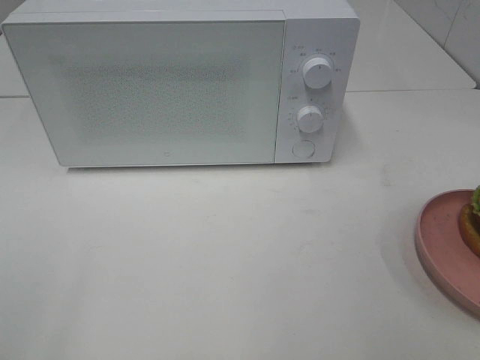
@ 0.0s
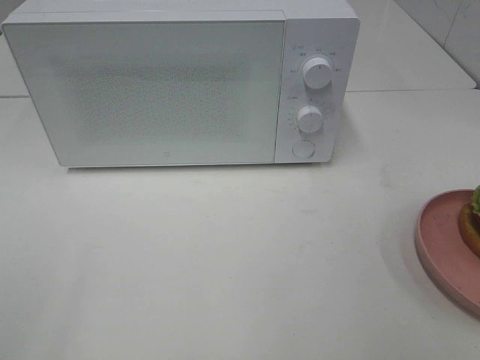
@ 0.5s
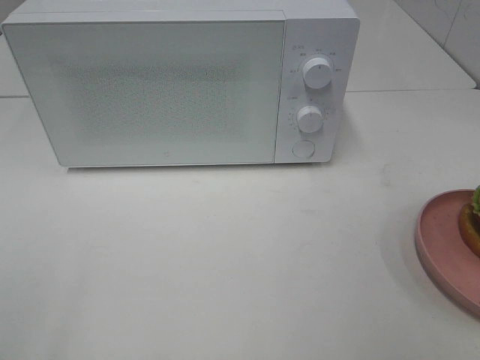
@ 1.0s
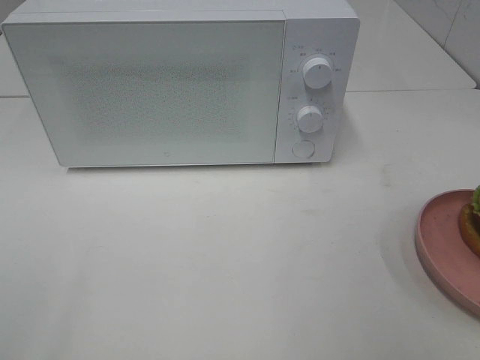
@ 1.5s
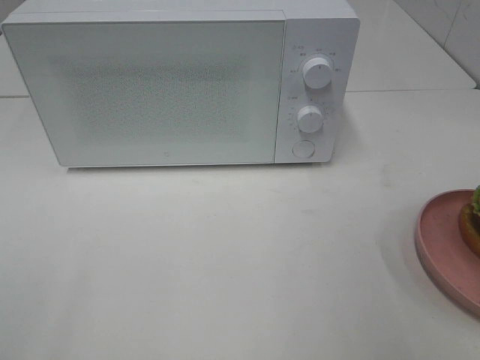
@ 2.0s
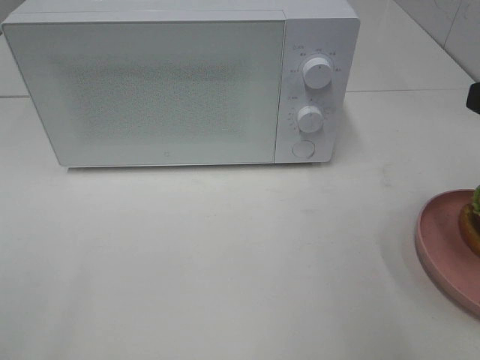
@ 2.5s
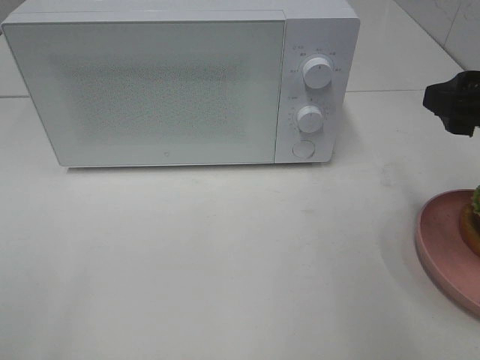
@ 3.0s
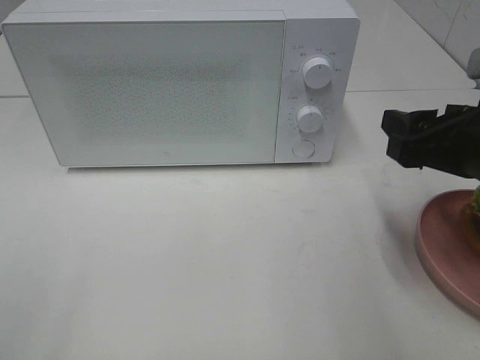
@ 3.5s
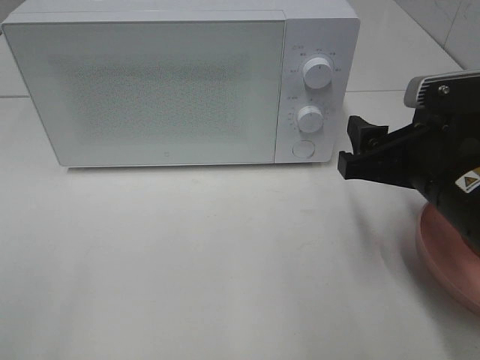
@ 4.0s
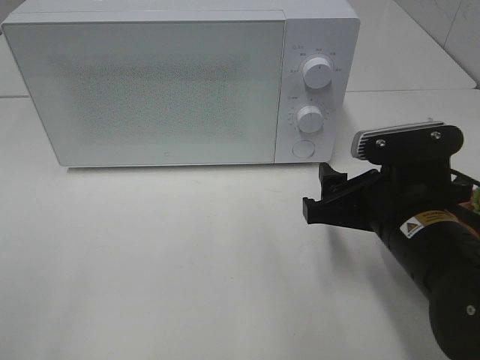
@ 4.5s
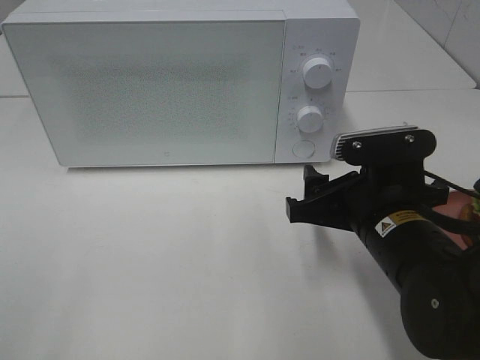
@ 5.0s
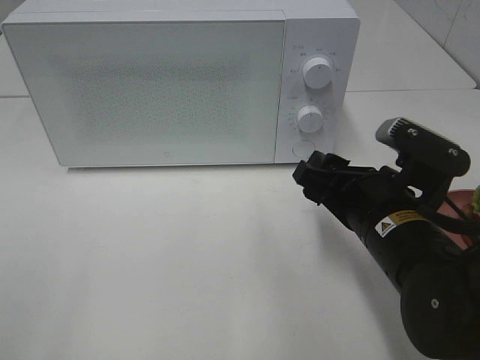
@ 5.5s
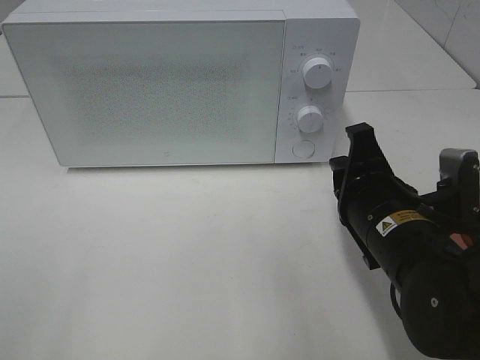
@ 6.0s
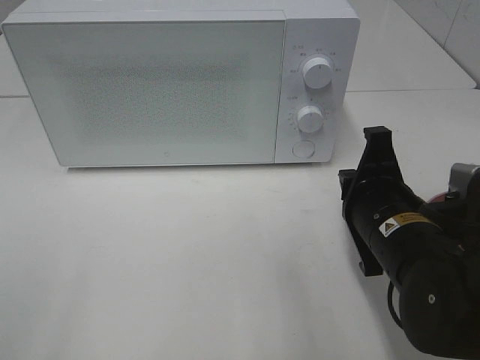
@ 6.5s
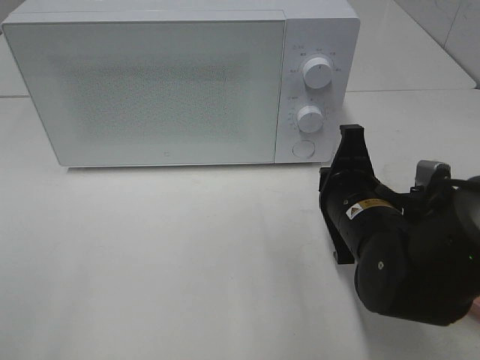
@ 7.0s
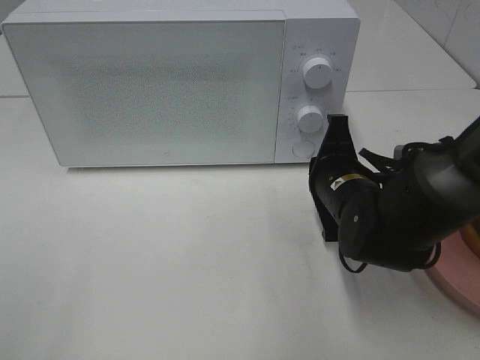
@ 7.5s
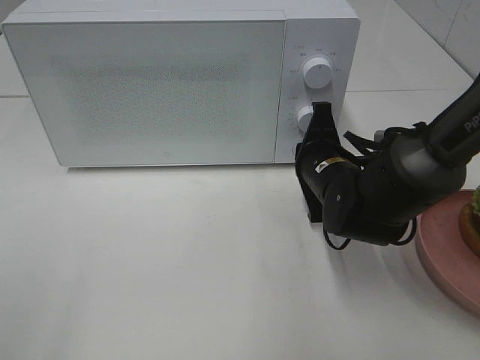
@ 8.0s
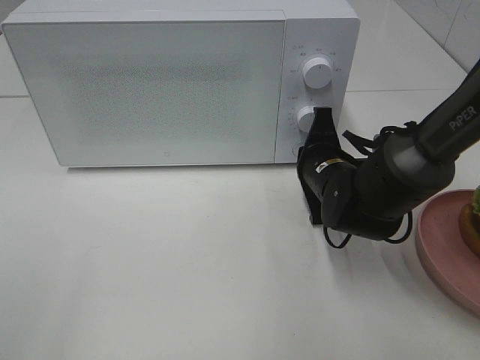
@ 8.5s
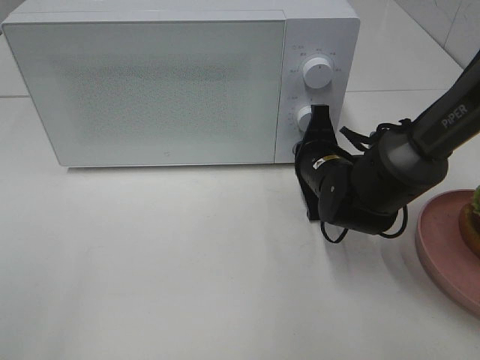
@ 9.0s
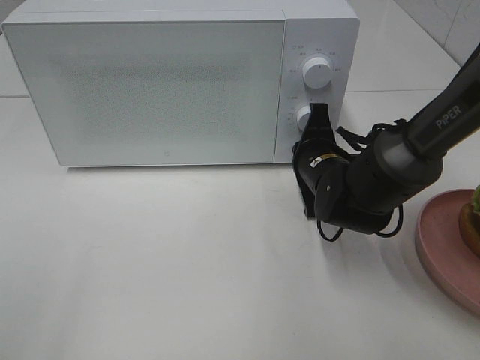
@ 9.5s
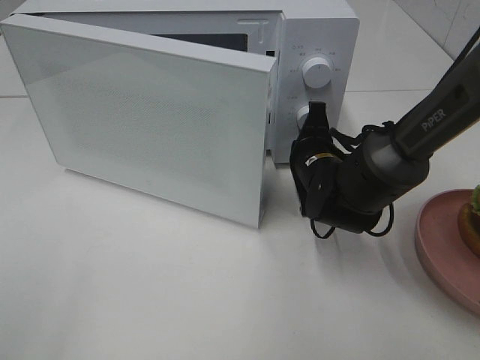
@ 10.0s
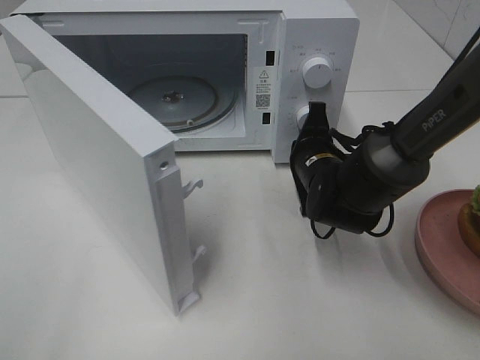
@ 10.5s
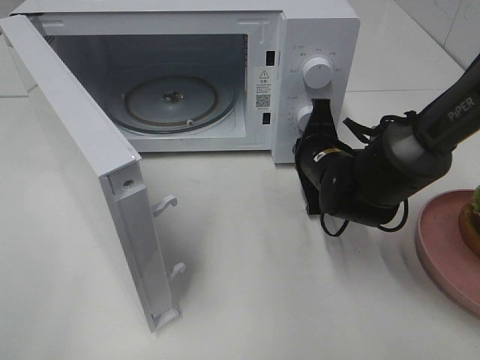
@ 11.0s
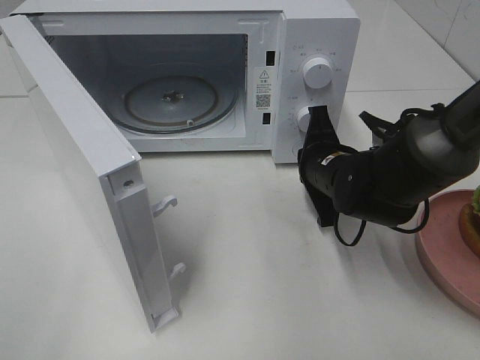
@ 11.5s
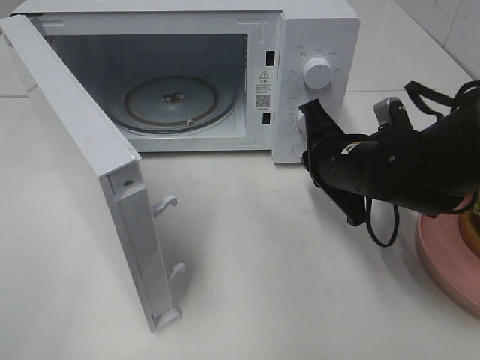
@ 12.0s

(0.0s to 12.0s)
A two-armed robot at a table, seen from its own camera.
Task of the whole recording: Heat the burger.
Step, 0.0s - 11.5s: Right hand: press the switch.
2.0s - 4.0s: The right gripper heads downward, forward and to the left, covering about 15 cm.
4.0s - 6.0s: The right gripper shifts roughly 5 cm downward, and closes up.
6.0s - 8.0s: The right gripper travels forward by about 10 cm.
8.0s - 10.0s: The grippers move only a little.
10.0s - 12.0s: The right gripper heads upward and backward, covering roughly 10 cm.

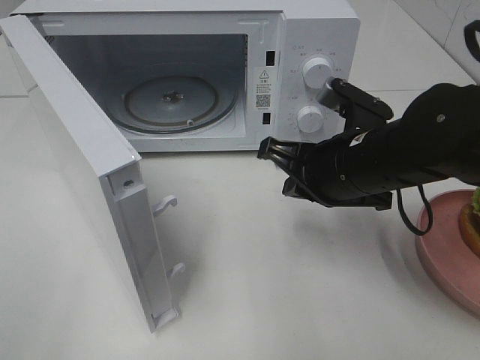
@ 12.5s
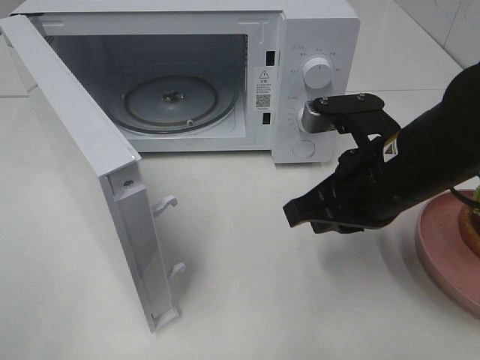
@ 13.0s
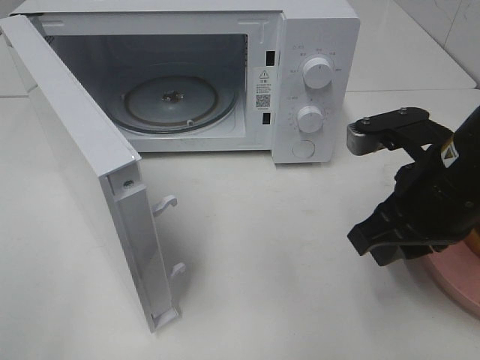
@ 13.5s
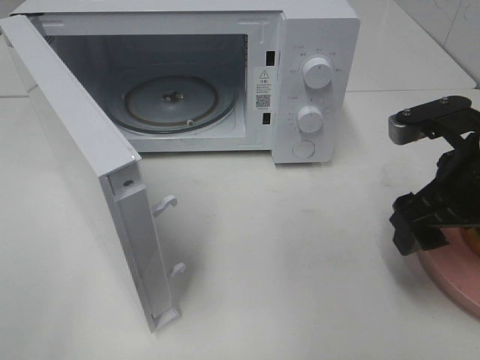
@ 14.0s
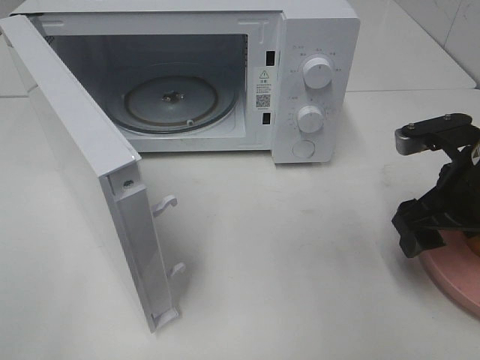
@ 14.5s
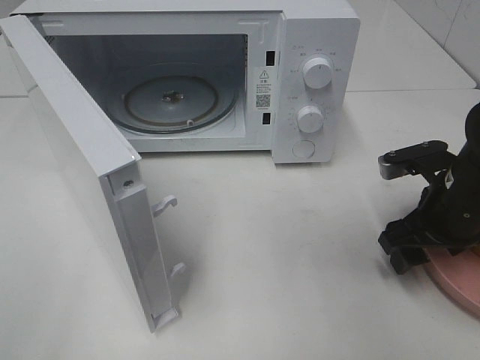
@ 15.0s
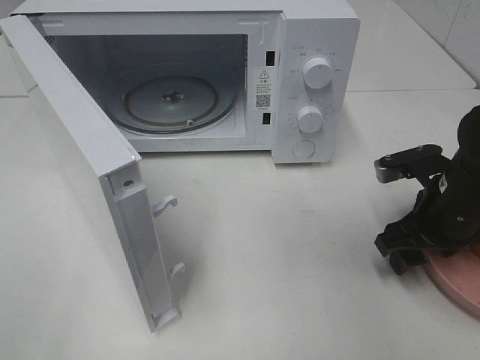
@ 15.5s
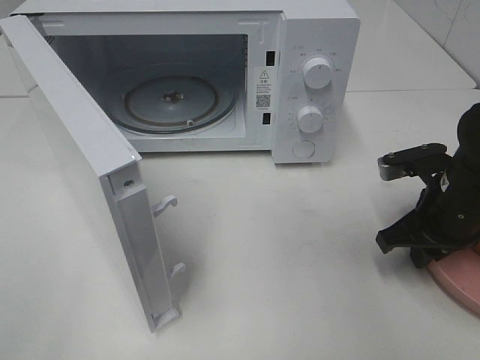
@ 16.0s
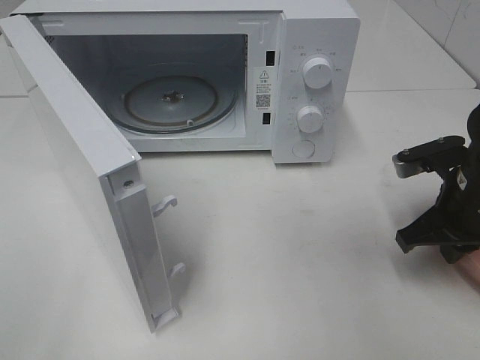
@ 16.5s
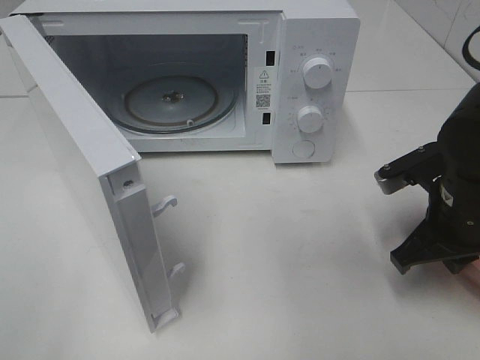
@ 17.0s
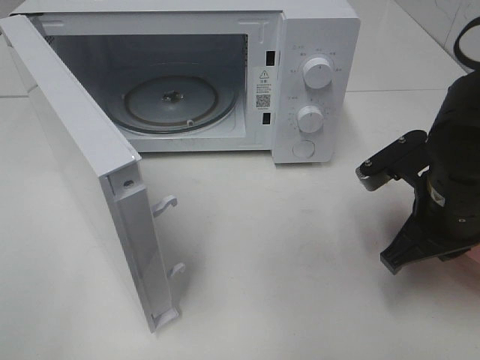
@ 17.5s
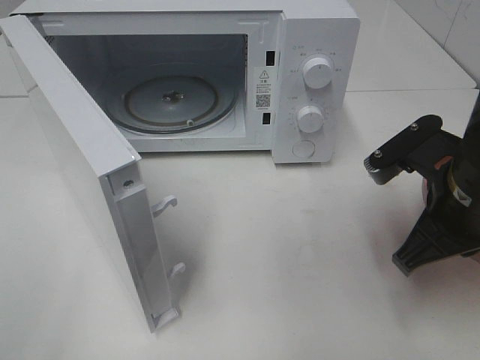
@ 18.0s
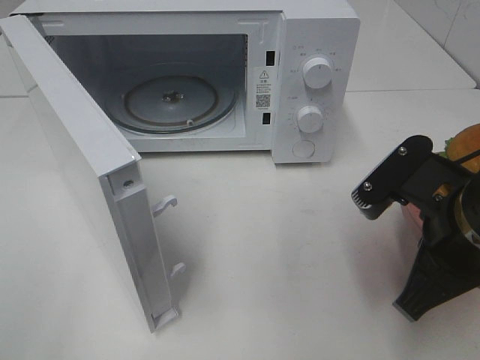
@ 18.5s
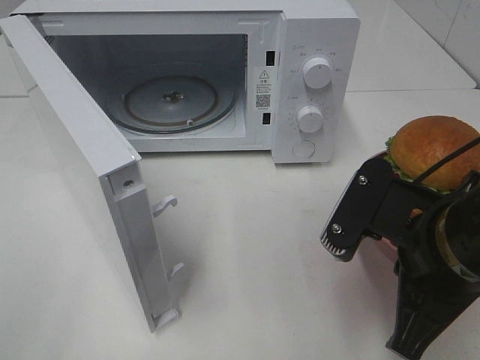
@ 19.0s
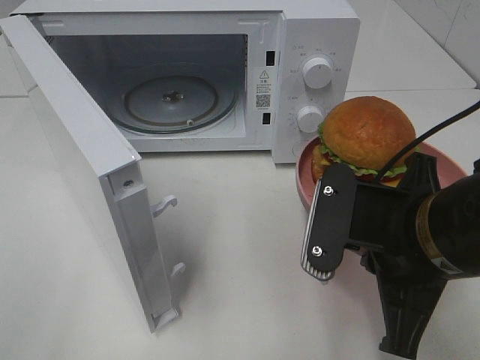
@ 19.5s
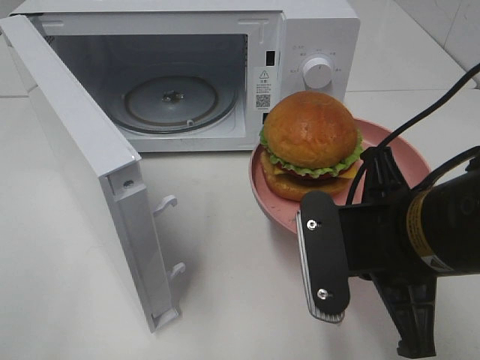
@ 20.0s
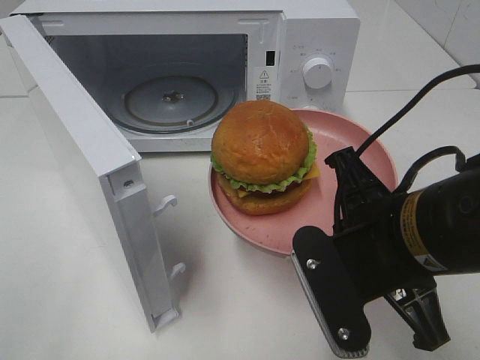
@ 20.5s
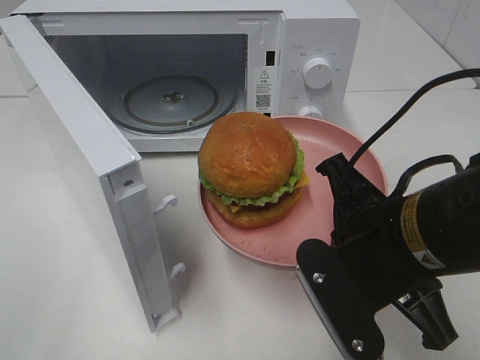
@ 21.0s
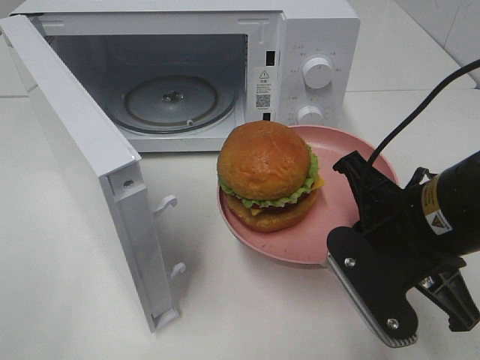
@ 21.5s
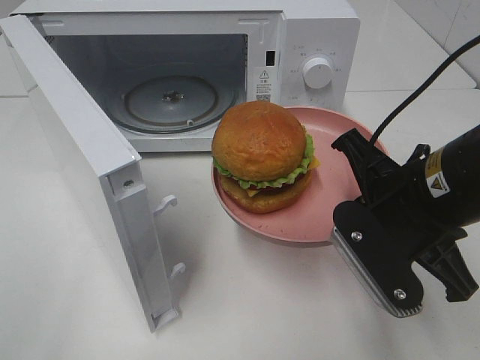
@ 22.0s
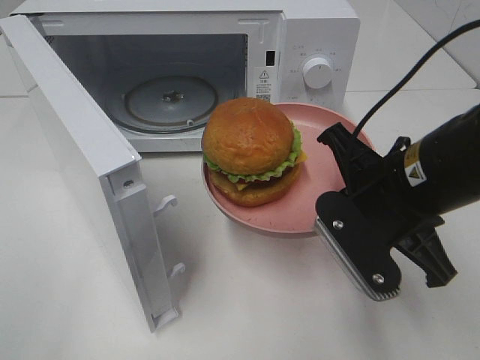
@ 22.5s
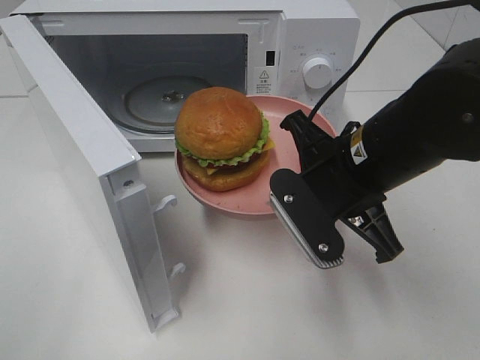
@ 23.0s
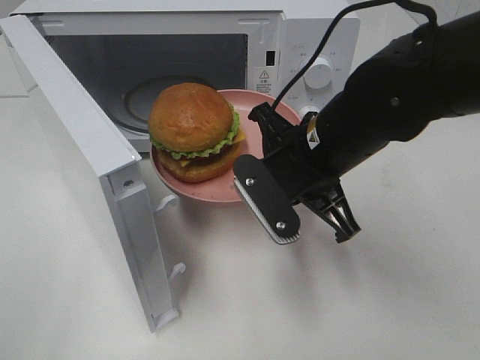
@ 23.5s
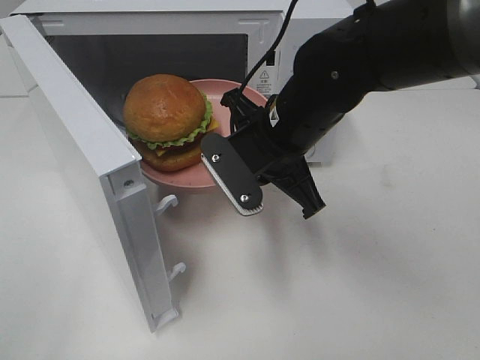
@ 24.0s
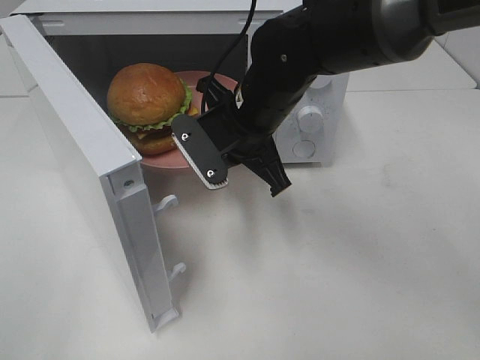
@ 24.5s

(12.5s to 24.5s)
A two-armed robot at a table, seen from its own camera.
Task of the whole recording: Heat the burger.
Step, 12.5s - 16.5s: Right hand: grab the plate with the hamburger.
12.5s - 14.5s: The right gripper heads to the right, covering approximately 10 cm, and opens its fingers.
14.5s - 16.5s: The right gripper closes.
16.5s - 18.5s: The right gripper is displaced backward, to the left and upward by approximately 15 cm.
18.5s - 20.5s: The right gripper moves to the left, some 5 cm.
20.5s - 22.5s: The right gripper goes some 5 cm forward.
22.5s - 24.5s: The right gripper heads forward and to the left, covering approximately 15 cm.

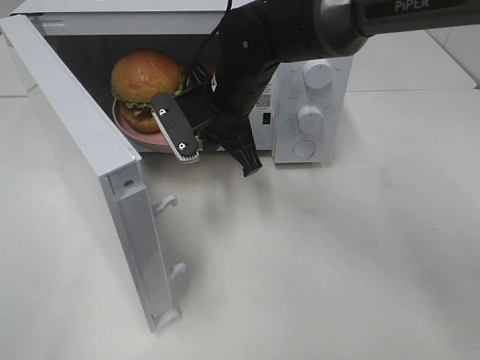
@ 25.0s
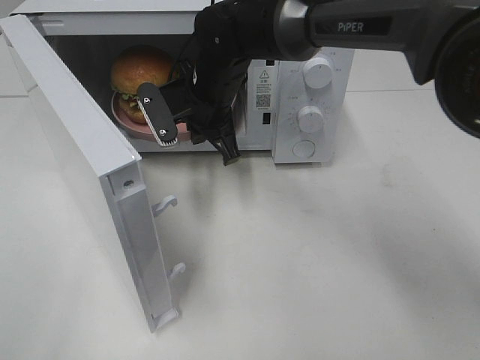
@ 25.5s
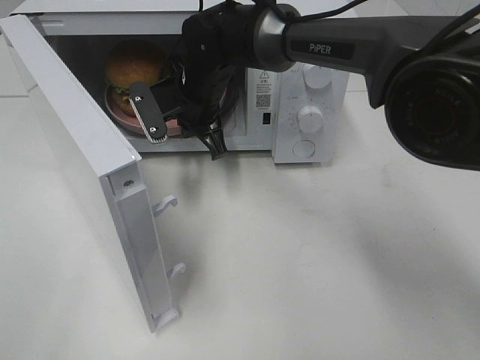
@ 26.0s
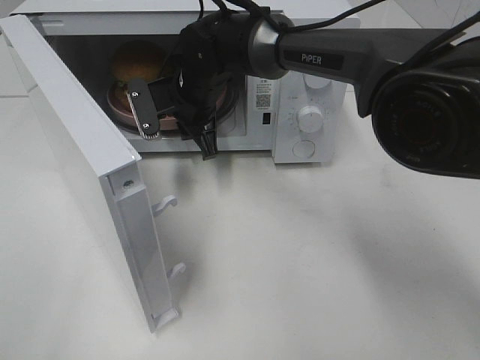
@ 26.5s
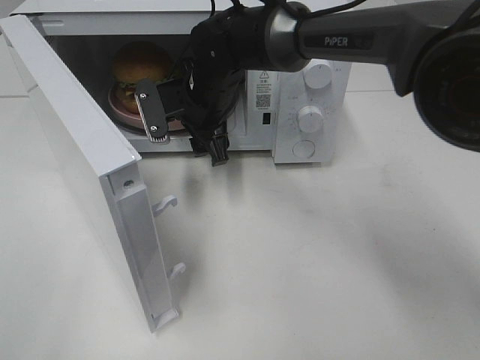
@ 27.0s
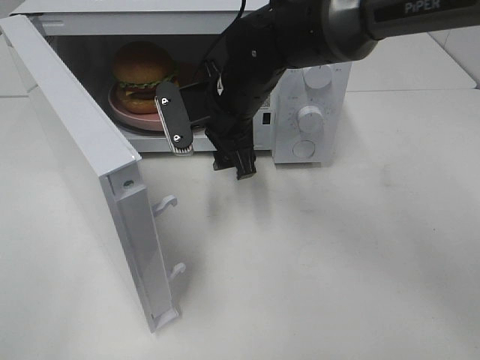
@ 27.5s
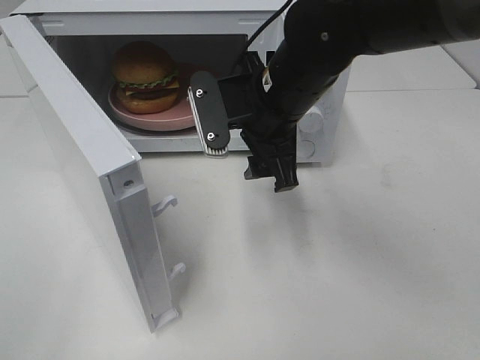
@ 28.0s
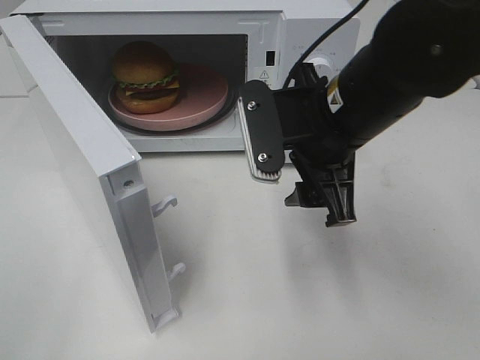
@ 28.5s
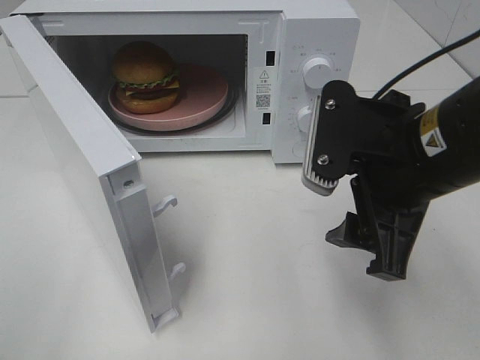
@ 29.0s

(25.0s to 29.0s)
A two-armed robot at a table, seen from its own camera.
Task of the whole recording: Heat the burger.
Step, 25.0s - 27.0s: Right hand: place the plate in the microwave.
25.0s - 27.0s: The right gripper opens.
27.0s - 29.0s: The right gripper moves backward and to the right, some 30 cm.
